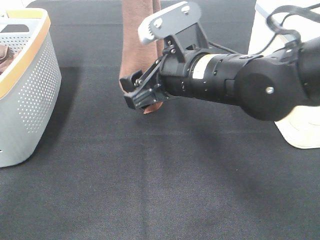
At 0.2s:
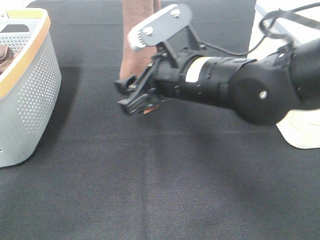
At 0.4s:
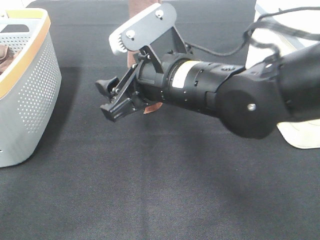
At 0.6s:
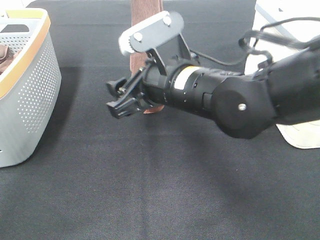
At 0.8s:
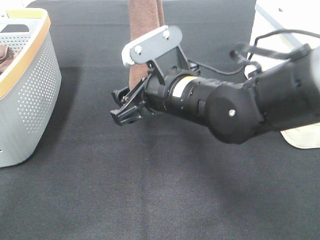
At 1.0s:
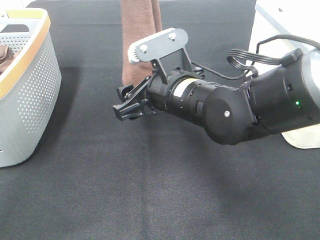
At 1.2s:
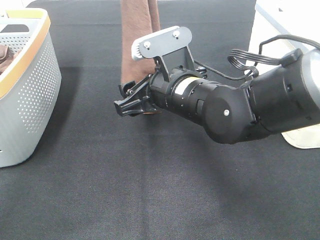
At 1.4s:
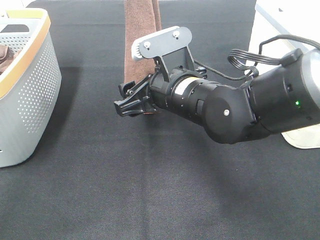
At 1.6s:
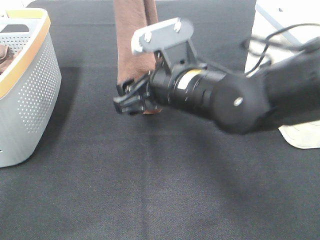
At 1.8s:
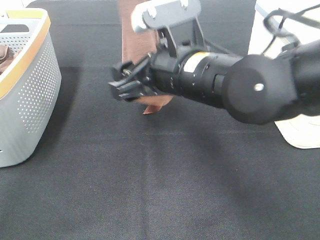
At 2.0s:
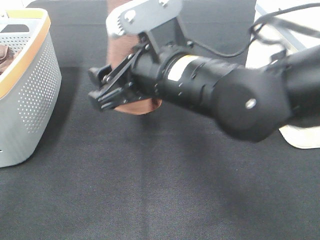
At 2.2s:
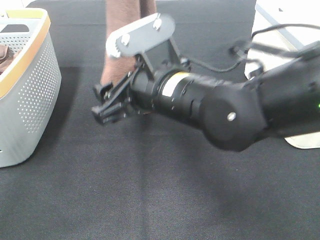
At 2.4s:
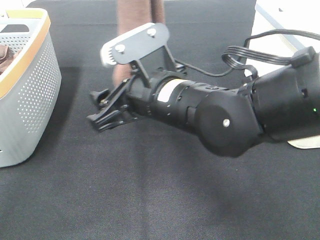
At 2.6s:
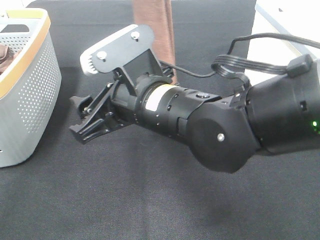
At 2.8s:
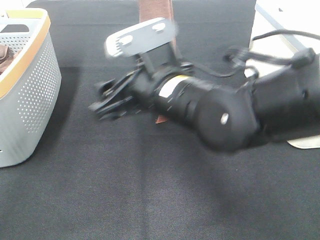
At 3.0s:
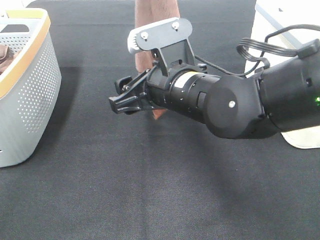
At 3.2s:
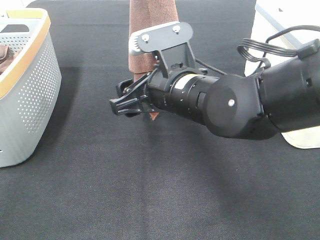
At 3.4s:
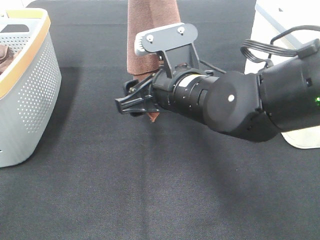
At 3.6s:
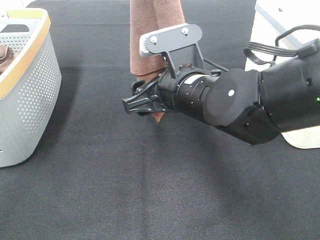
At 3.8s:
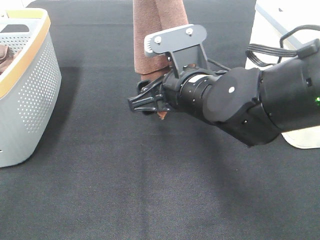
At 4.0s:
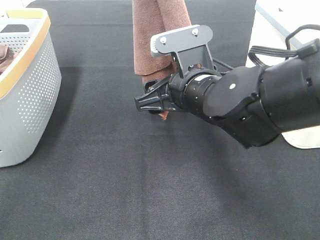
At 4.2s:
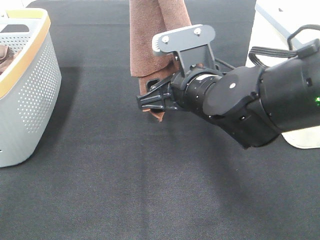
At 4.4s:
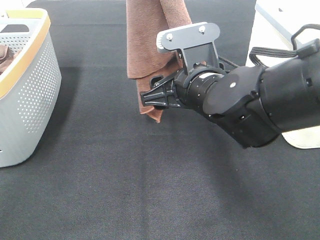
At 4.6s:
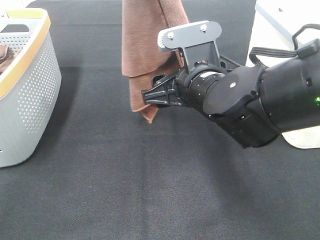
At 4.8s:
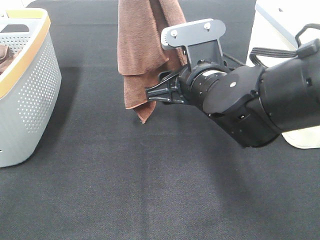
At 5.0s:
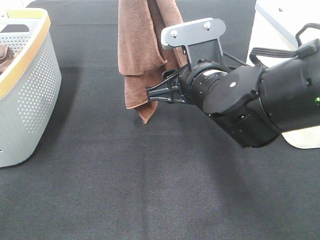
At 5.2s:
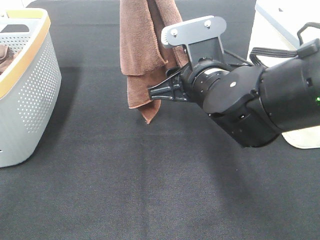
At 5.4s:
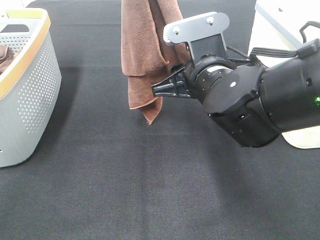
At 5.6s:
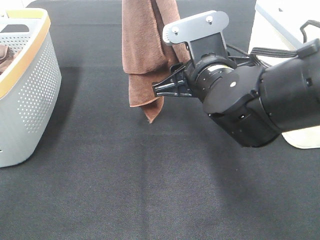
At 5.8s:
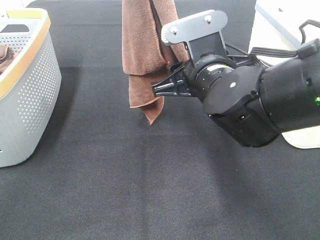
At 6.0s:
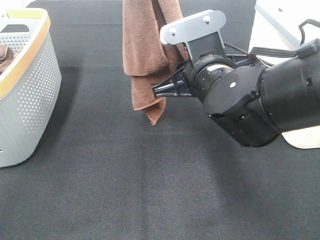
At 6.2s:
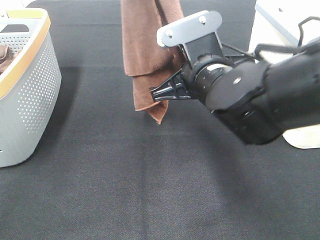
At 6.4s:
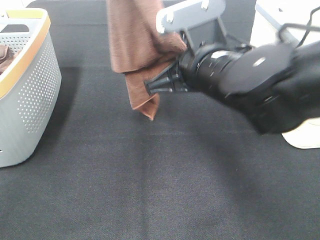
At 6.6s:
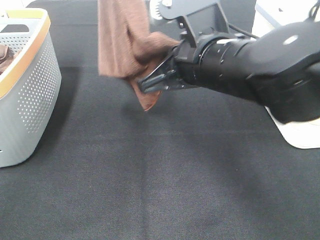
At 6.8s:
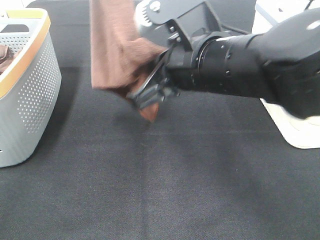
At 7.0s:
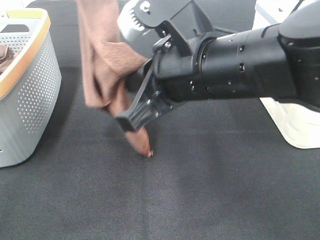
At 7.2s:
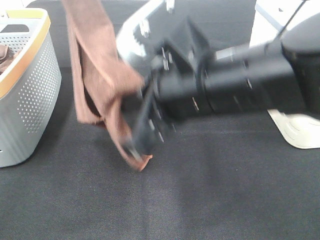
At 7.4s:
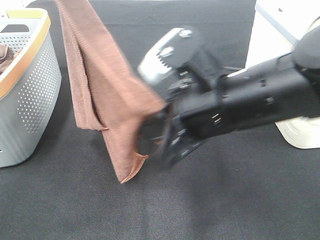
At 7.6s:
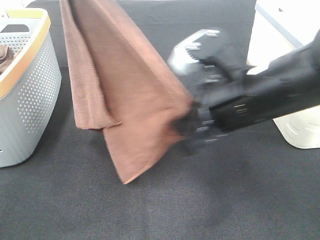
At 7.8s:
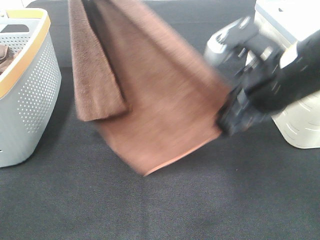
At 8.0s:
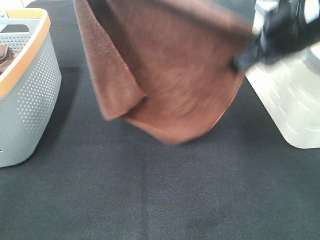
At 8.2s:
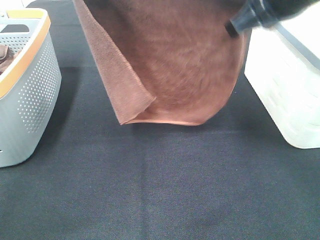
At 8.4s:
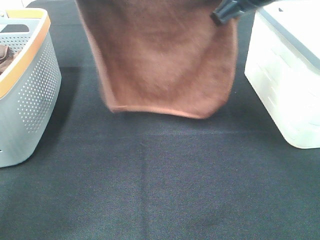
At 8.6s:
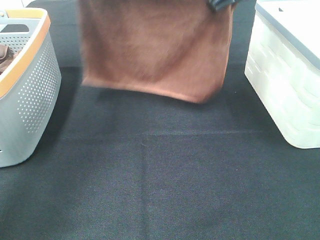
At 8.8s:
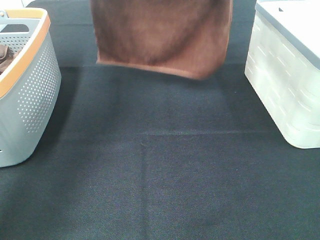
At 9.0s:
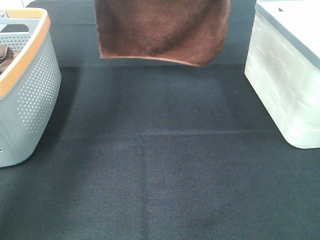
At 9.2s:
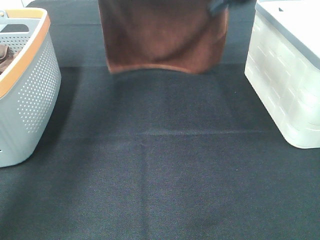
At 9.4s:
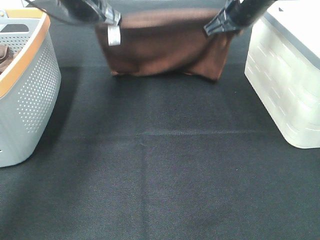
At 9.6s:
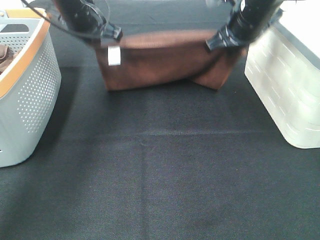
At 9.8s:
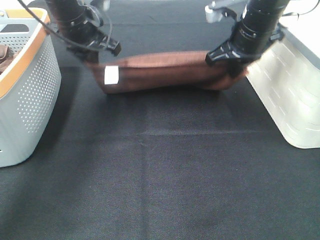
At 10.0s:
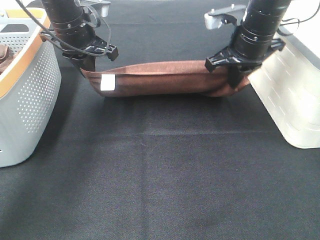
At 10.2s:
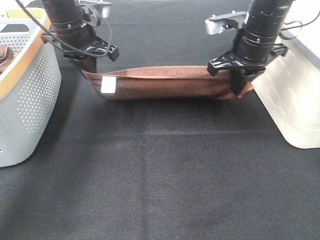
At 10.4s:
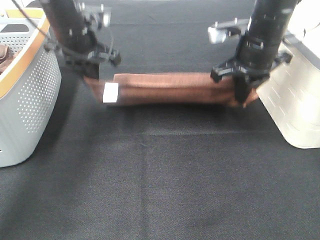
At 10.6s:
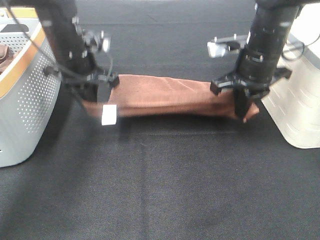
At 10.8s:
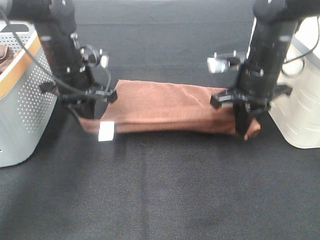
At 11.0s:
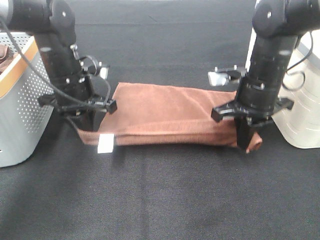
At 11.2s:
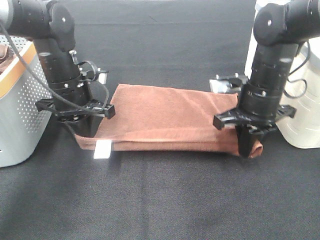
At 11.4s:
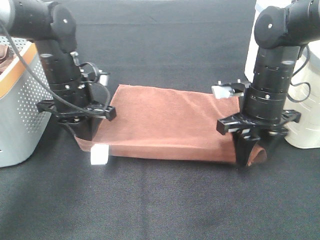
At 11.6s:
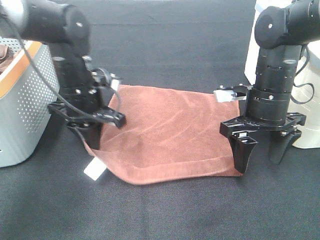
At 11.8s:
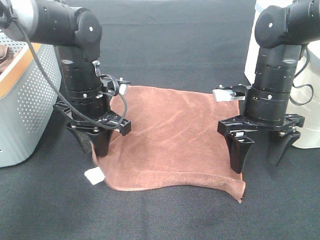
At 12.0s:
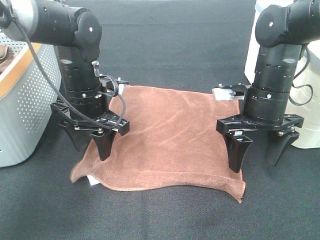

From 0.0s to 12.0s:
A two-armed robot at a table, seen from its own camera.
Task of the whole recording: Remove the towel and place it.
Step, from 0.0s to 3.2s: Right hand: grab a corner of the brown towel and straighten it.
Step, from 3.4s to 5.6s: Right hand: spread the brown towel flat on the table.
Step, from 3.4s to 6.0s: Left hand: spread the brown towel flat on the table.
From 0.0s to 1.6s: The grippers move only a little.
From 1.6s to 3.0s: The grippers stay close to where they were, moving slightly.
From 4.4s to 6.0s: The right gripper closes its fingers.
From 6.0s to 7.6s: The right gripper ends up about 5 cm from where it was.
From 7.6s to 9.0s: The right gripper moves forward, approximately 25 cm. Meanwhile the left gripper travels forward and downward by approximately 20 cm.
From 9.0s to 10.4s: The left gripper travels downward by approximately 15 cm, while the right gripper is displaced downward and backward by roughly 10 cm.
From 10.4s to 12.0s: Both grippers travel together backward and downward, about 10 cm. The left gripper opens, while the right gripper opens up.

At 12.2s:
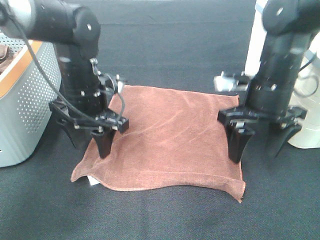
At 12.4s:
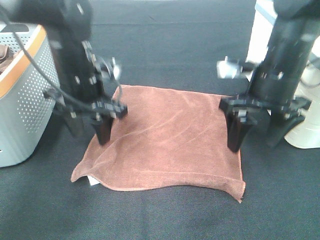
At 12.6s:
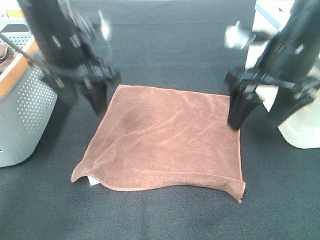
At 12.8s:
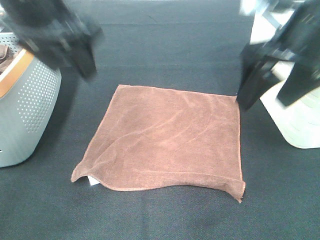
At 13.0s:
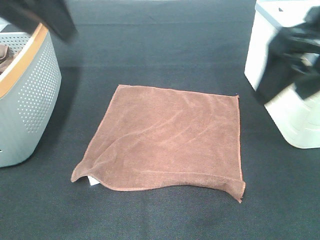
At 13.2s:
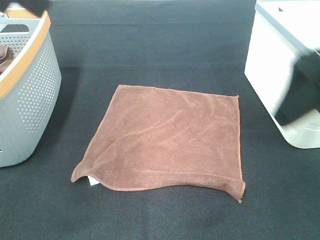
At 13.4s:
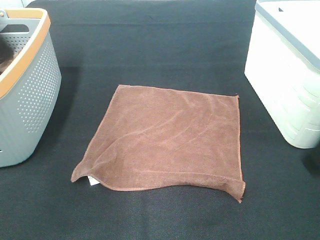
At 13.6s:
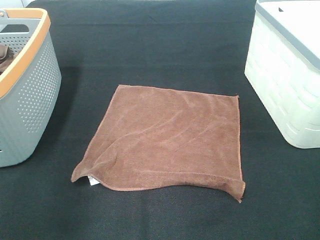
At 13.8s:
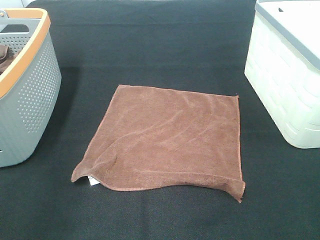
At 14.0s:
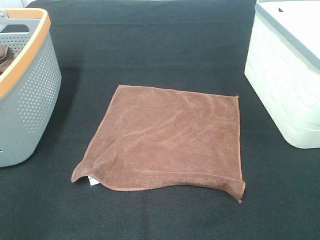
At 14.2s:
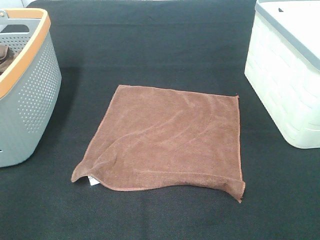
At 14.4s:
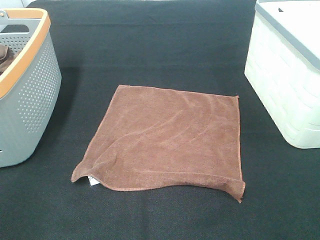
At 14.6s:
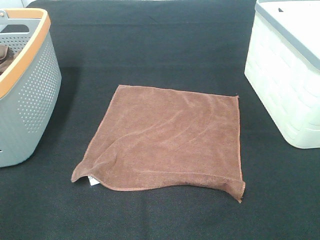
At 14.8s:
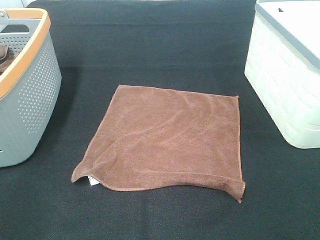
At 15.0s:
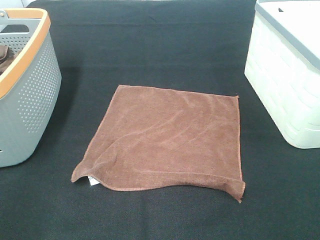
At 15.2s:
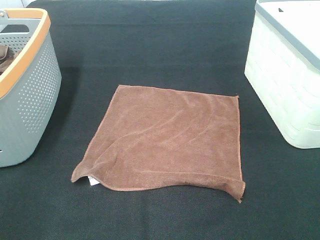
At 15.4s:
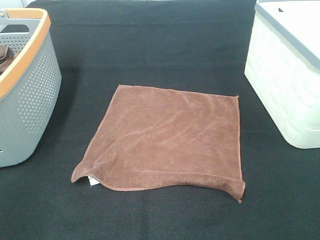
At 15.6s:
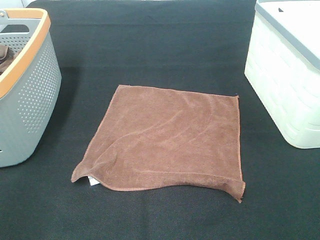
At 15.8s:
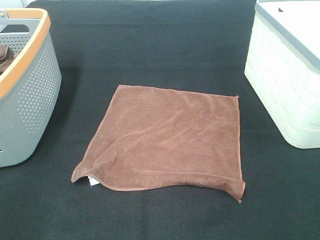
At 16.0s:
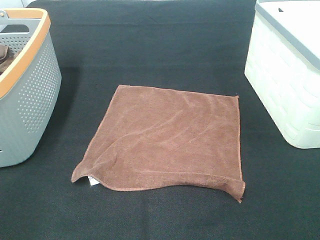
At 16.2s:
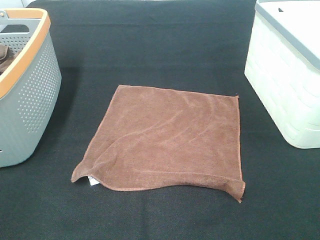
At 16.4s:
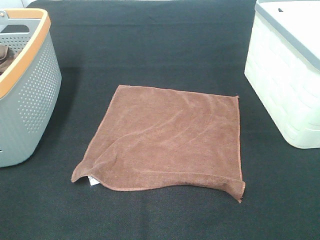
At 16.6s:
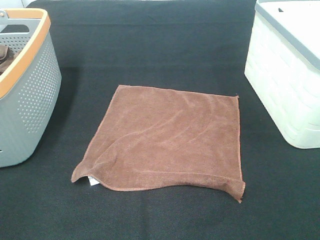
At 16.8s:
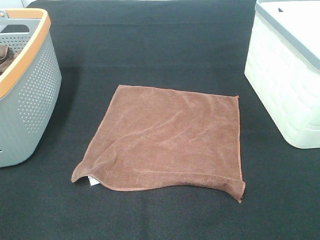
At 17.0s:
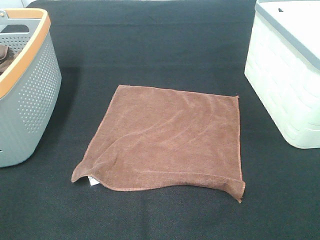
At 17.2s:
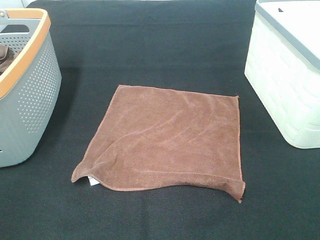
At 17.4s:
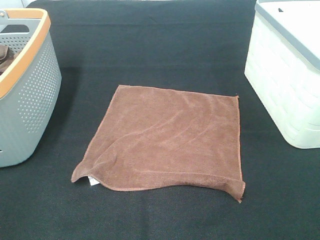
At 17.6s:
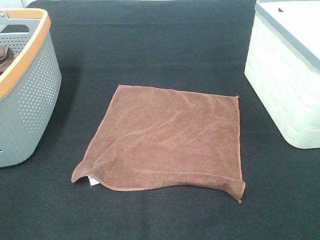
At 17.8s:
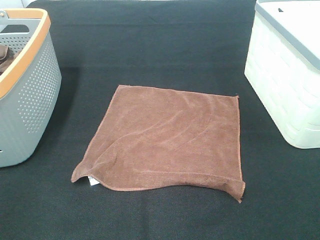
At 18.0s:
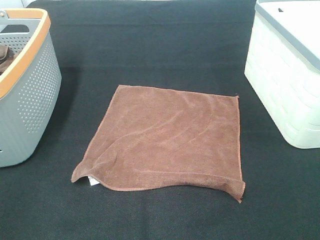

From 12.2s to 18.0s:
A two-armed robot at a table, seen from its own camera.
Task of the whole recording: Remove the towel and place it.
From 12.2s to 13.6s: The left gripper moves backward, upward and to the left, about 30 cm; the right gripper moves backward and upward, some 25 cm.
From 16.6s to 18.0s: Neither gripper changes place.

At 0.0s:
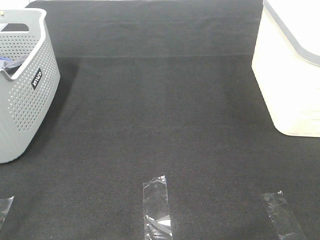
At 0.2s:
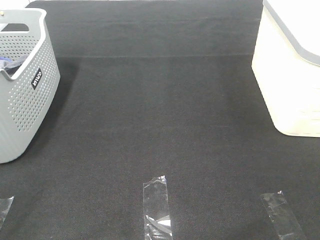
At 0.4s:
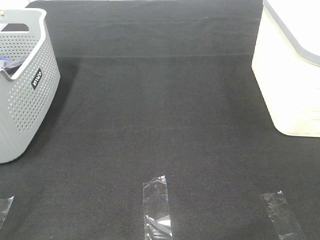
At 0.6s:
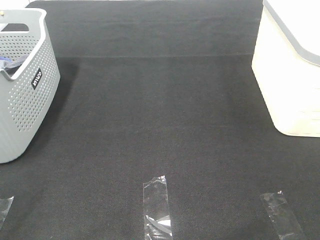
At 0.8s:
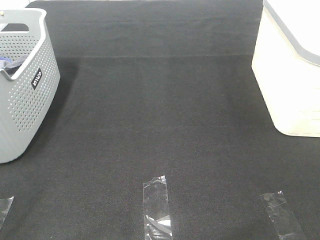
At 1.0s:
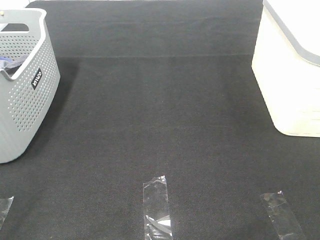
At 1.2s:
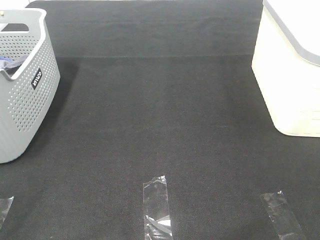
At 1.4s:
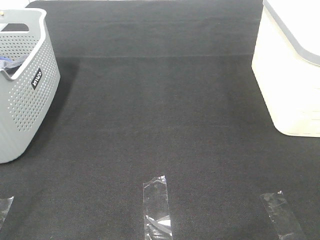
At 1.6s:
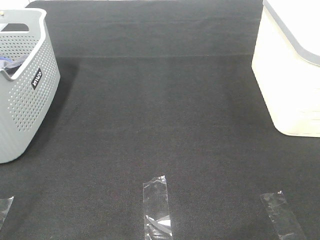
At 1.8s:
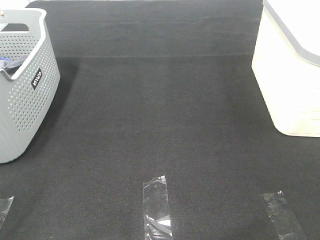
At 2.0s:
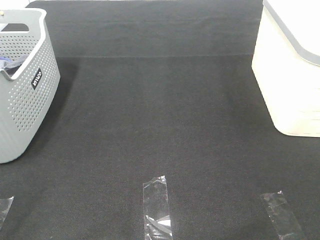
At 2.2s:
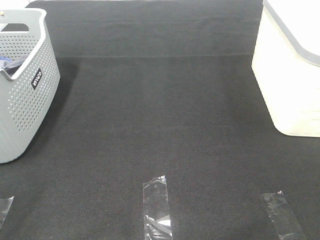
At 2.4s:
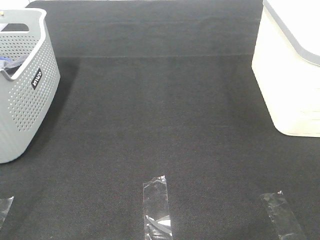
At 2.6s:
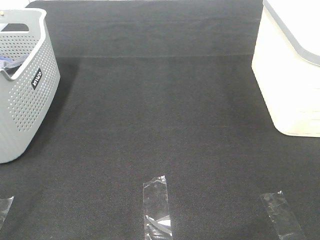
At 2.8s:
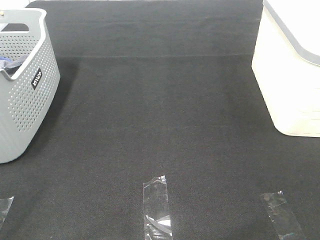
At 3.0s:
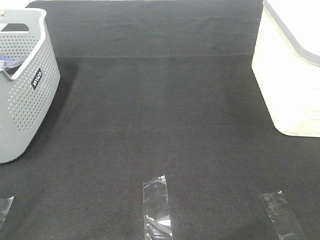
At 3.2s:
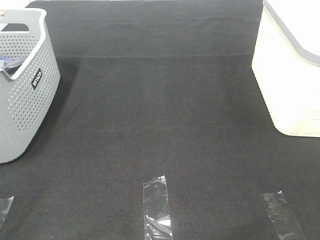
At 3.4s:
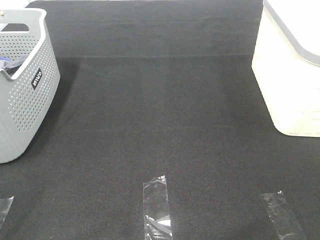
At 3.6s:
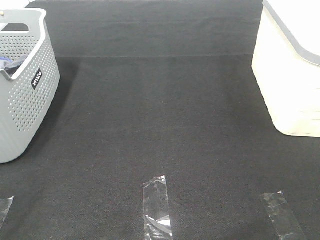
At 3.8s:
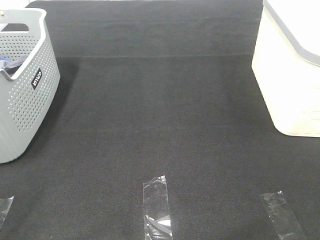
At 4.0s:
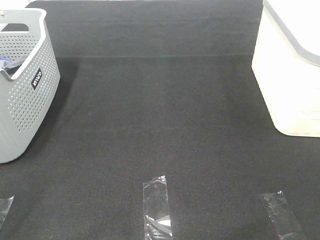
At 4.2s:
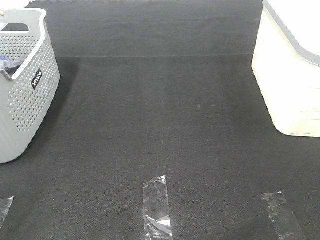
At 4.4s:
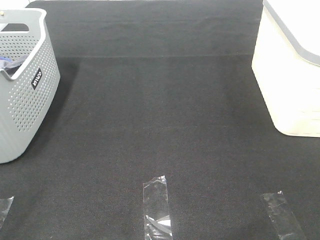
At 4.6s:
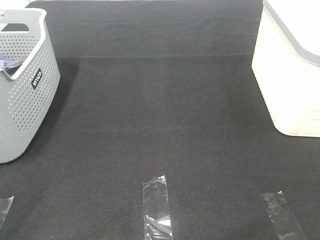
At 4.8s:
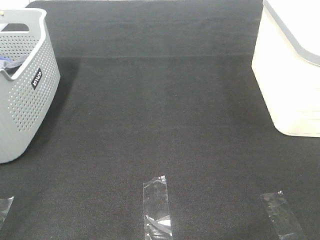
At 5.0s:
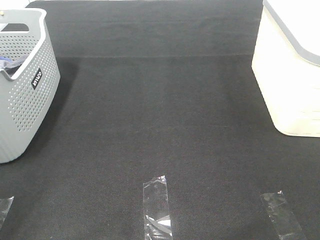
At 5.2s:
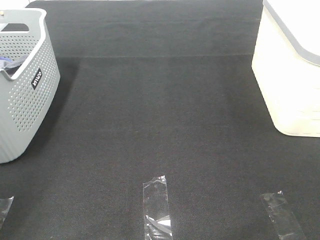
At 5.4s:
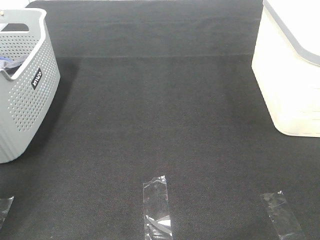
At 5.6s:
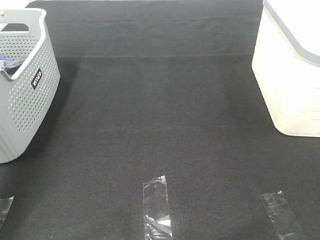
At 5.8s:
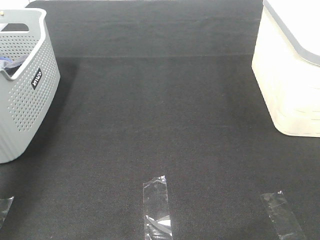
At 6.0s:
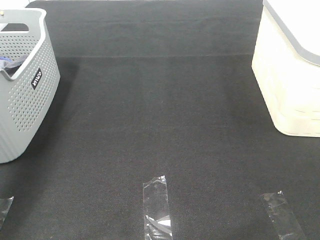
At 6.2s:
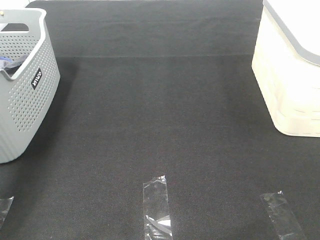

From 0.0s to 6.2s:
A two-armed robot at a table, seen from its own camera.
Task of the whole recording: Remove the towel and place it.
From 0.0s to 4.6s: Both grippers stay put.
From 4.6s to 6.2s: The left gripper shifts approximately 40 cm forward.
